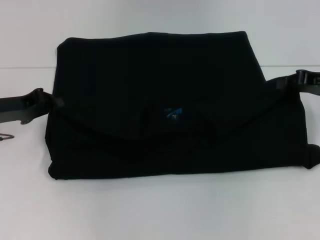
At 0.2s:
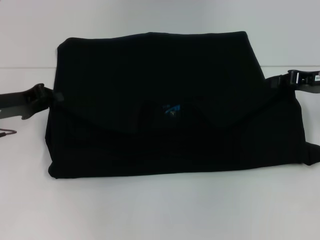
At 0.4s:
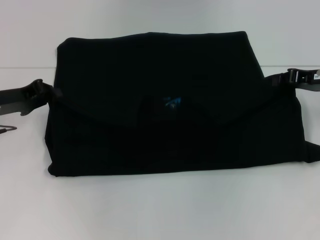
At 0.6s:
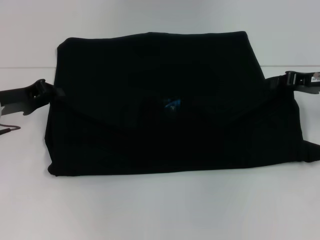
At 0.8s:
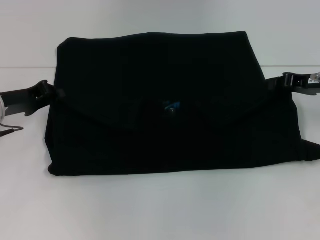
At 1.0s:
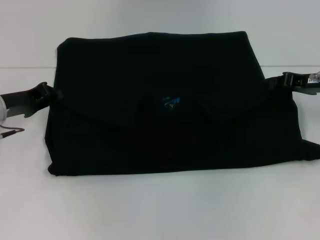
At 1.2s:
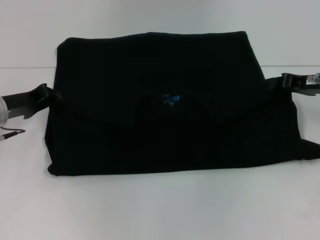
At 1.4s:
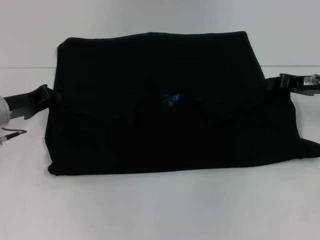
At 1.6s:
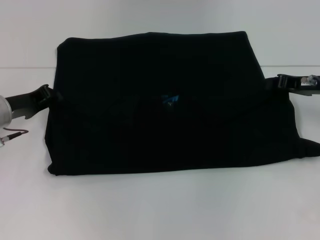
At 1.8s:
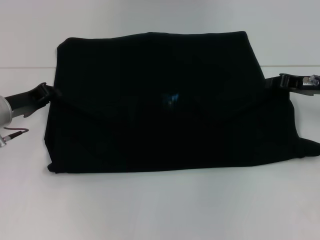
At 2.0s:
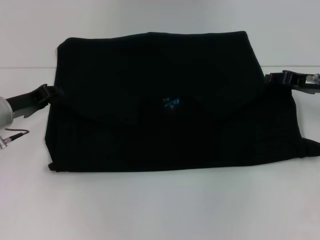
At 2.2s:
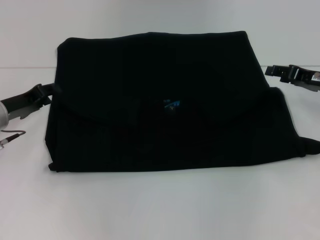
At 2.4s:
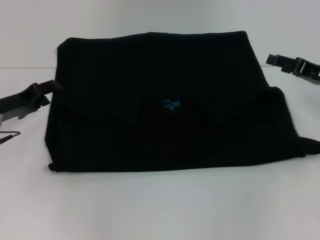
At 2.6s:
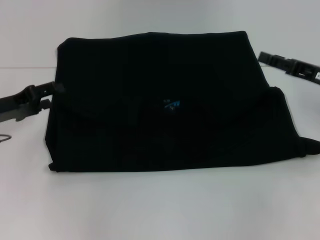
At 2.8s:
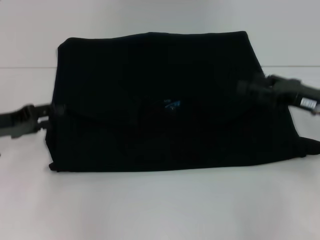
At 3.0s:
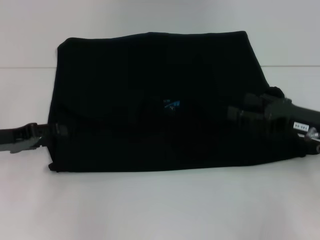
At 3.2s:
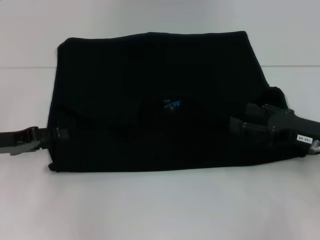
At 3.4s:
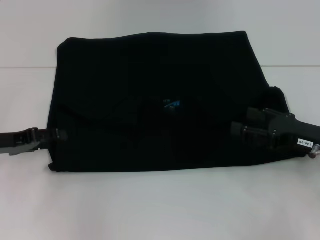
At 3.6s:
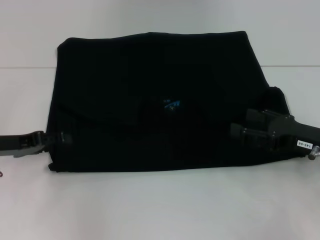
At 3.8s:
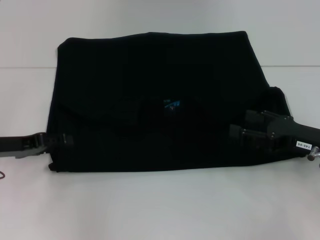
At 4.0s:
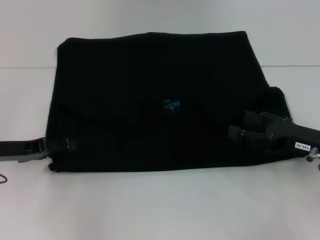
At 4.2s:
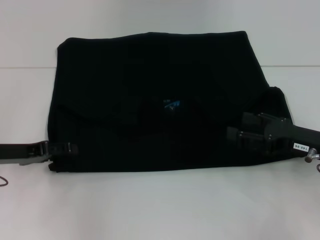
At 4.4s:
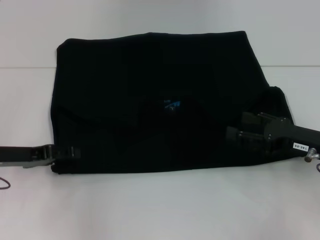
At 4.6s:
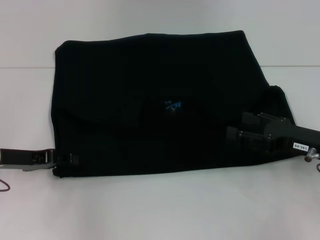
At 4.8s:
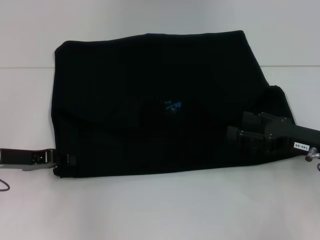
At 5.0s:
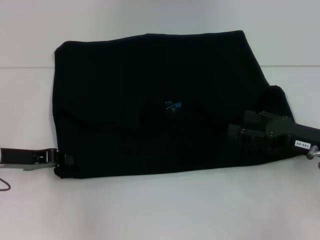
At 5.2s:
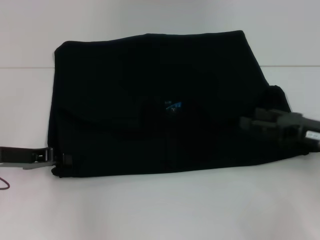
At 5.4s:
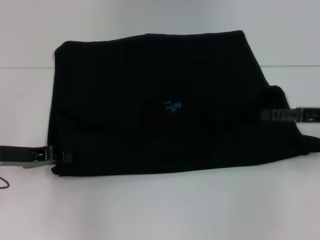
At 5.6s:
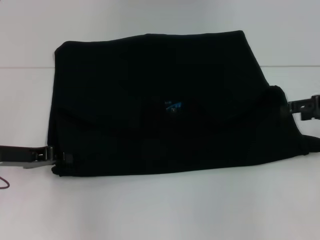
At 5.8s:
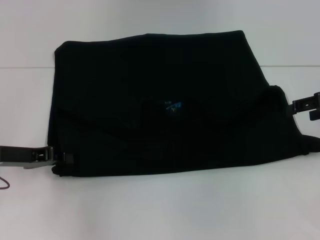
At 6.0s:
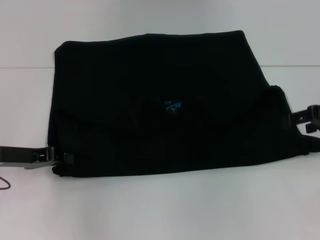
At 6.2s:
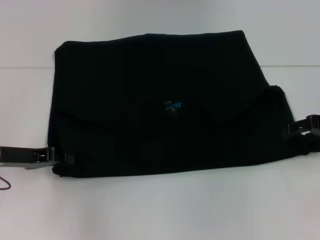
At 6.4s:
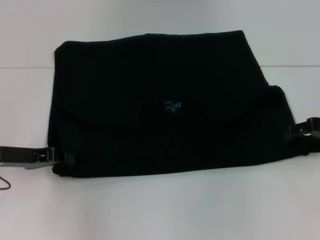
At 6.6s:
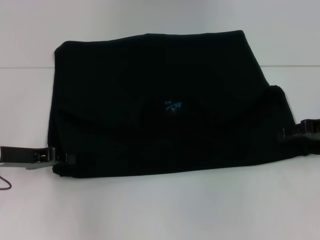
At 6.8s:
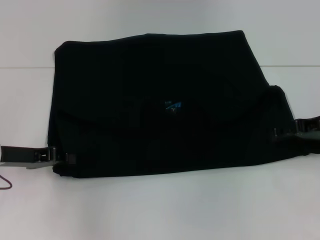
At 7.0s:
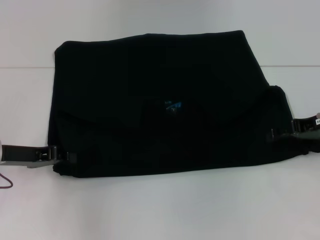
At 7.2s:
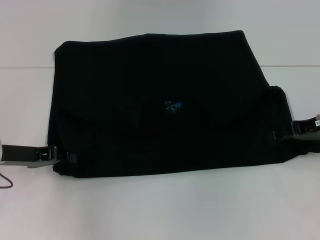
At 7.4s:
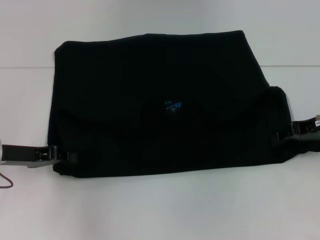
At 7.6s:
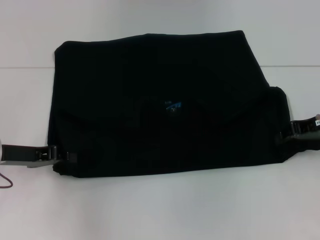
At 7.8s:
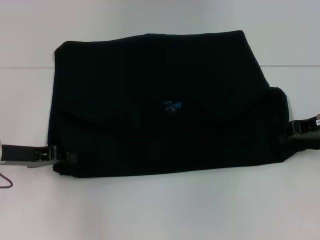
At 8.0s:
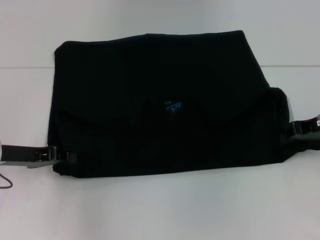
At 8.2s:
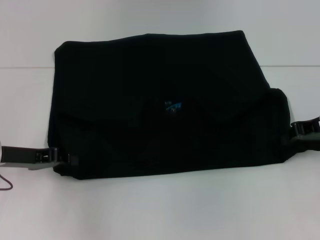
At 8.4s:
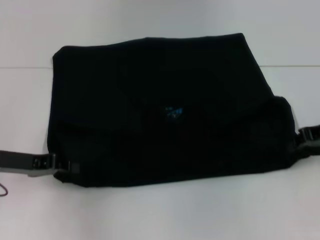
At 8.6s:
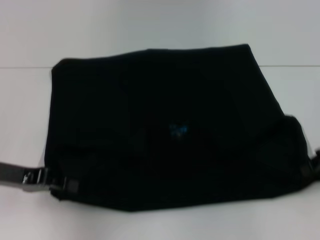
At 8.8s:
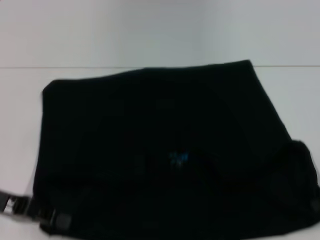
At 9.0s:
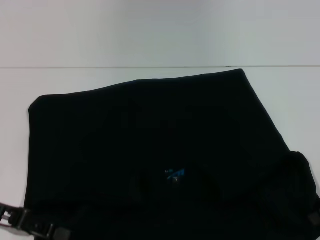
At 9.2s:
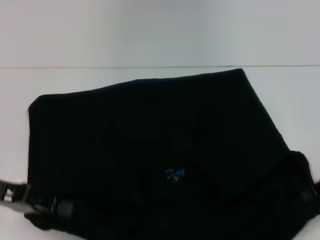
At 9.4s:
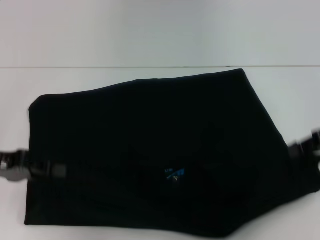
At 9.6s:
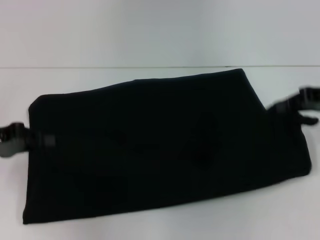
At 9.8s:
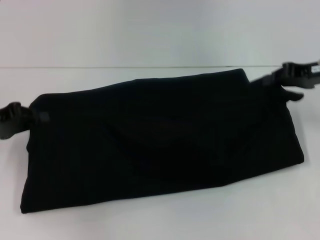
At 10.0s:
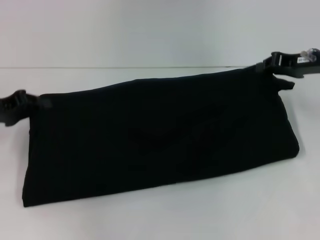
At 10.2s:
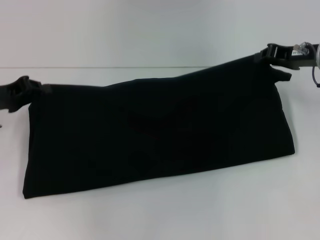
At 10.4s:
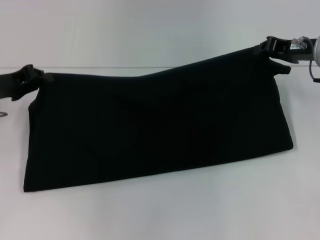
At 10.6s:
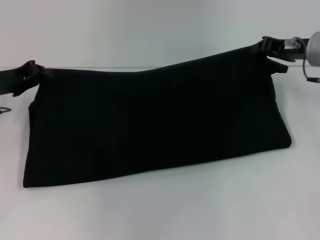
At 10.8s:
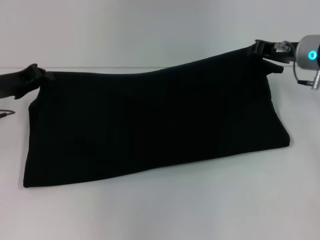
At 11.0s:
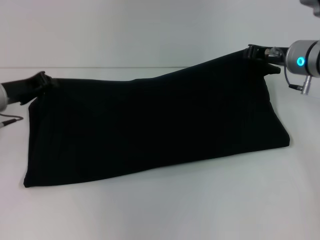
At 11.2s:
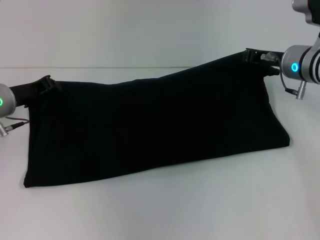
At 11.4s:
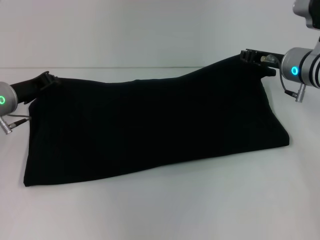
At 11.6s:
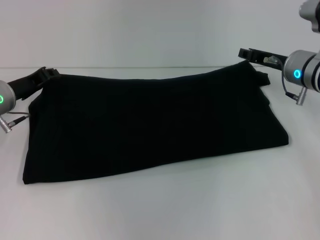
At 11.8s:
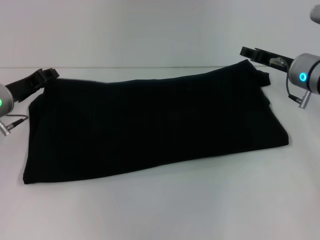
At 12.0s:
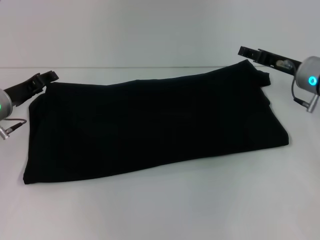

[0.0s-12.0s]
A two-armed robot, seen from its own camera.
Step, 0.0s to 2.4s: Fold the clothes with your left hand.
Step, 0.0s to 2.4s: Fold the clothes with your right hand.
Step, 2.6s to 9.0s: Pull the clothes with your left hand.
Step, 2.6s to 9.0s: Pull the clothes with your right hand.
Step, 9.2s to 12.0s: Fold the clothes with your right hand.
0.0s to 1.6s: The grippers move only a little.
1.6s to 3.0s: The left gripper shifts approximately 5 cm backward, and opens up. The right gripper heads backward, covering approximately 10 cm, and opens its fingers.
3.0s to 4.4s: There are only small adjustments of the grippers.
4.4s to 6.0s: The right gripper goes some 10 cm forward, upward and to the right; the left gripper closes its fingers.
6.0s to 7.6s: The right gripper closes up.
7.6s to 9.0s: Both grippers move backward, approximately 5 cm. The right gripper closes up.
9.0s to 10.4s: The left gripper moves forward, some 10 cm. Meanwhile the right gripper heads forward and to the left, covering some 15 cm.
10.4s to 12.0s: The left gripper ends up about 5 cm from where it was; the right gripper moves downward, roughly 5 cm, and opens its fingers.

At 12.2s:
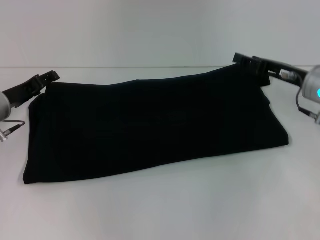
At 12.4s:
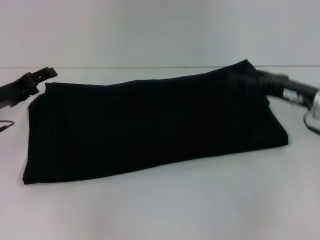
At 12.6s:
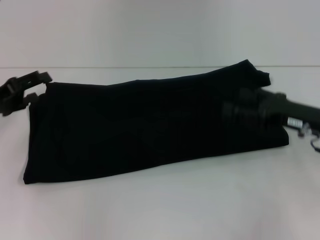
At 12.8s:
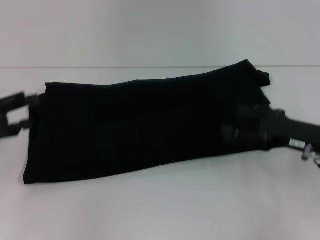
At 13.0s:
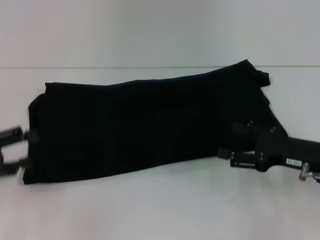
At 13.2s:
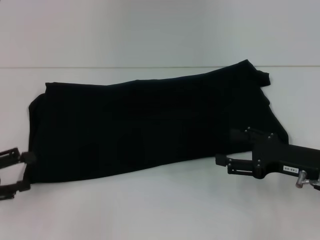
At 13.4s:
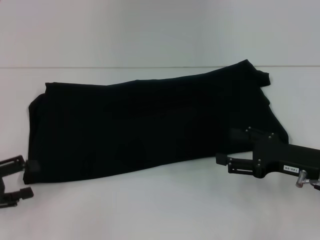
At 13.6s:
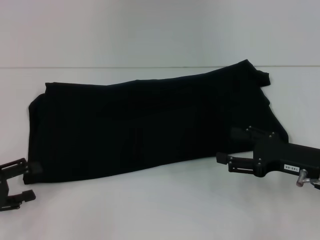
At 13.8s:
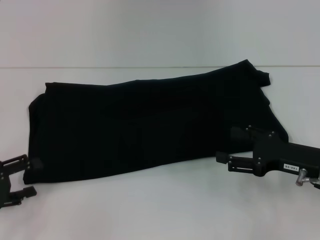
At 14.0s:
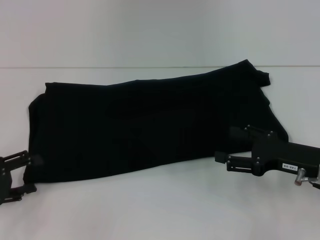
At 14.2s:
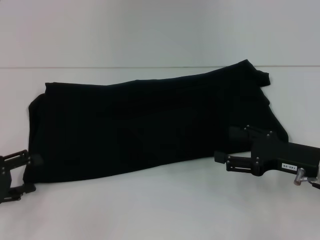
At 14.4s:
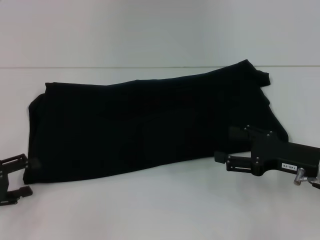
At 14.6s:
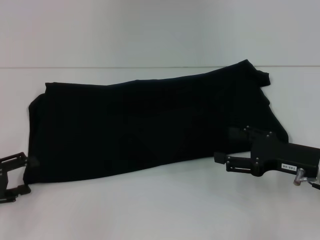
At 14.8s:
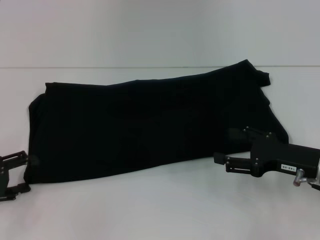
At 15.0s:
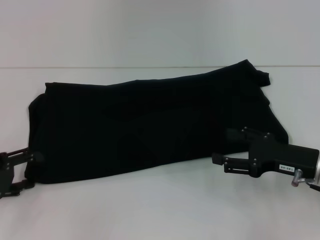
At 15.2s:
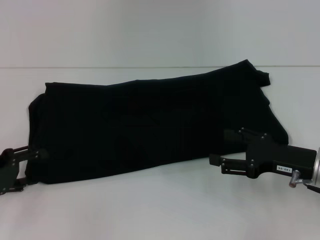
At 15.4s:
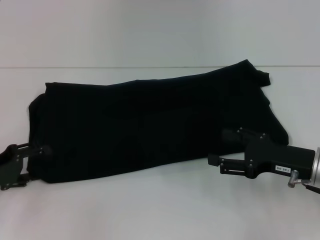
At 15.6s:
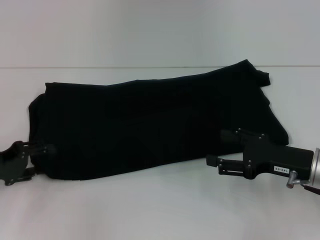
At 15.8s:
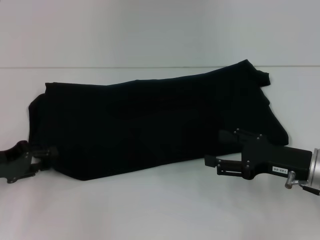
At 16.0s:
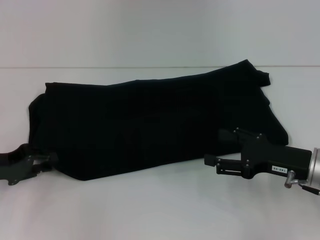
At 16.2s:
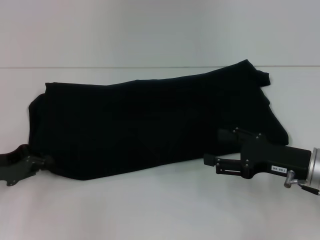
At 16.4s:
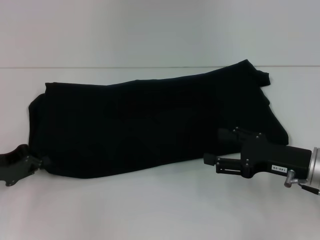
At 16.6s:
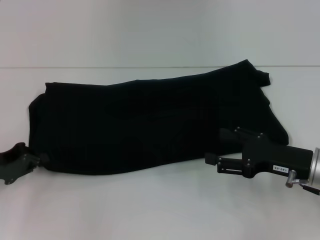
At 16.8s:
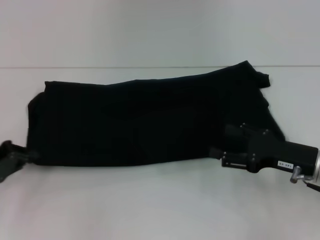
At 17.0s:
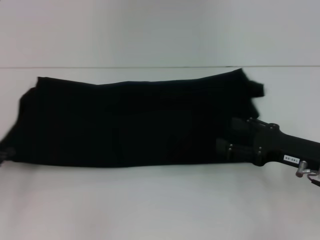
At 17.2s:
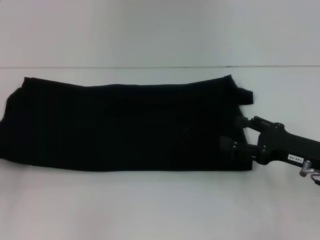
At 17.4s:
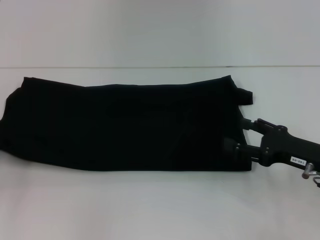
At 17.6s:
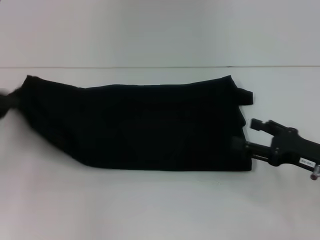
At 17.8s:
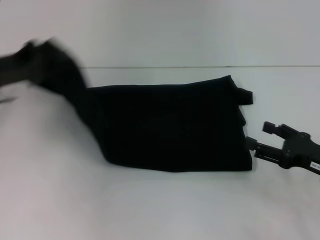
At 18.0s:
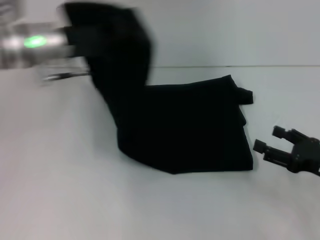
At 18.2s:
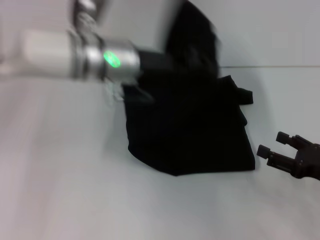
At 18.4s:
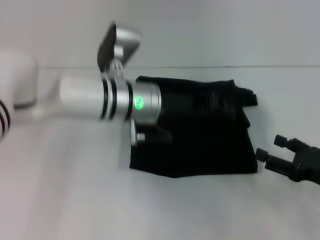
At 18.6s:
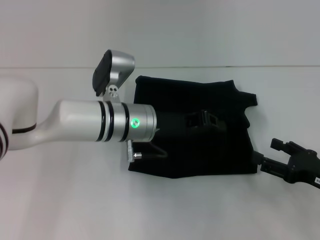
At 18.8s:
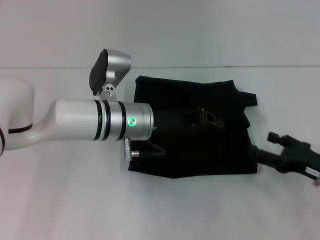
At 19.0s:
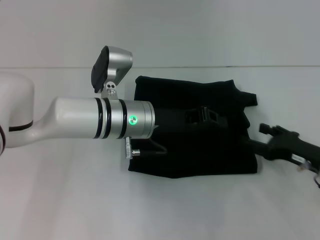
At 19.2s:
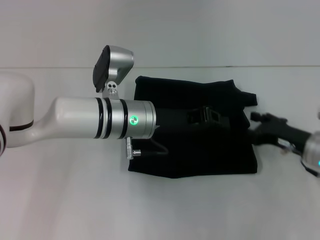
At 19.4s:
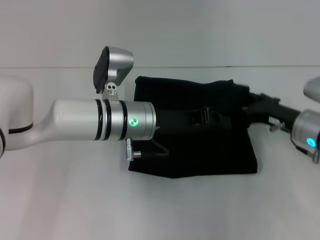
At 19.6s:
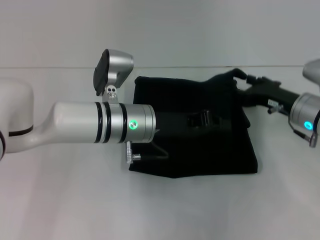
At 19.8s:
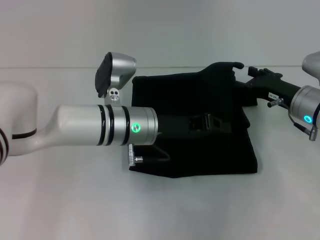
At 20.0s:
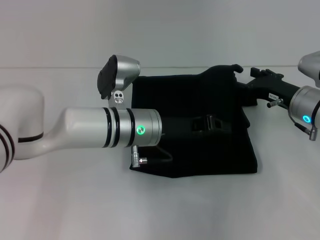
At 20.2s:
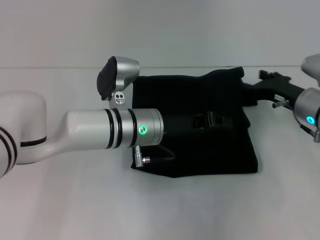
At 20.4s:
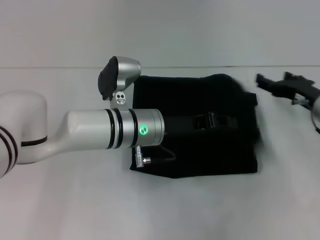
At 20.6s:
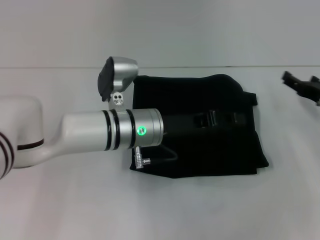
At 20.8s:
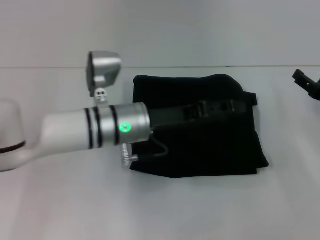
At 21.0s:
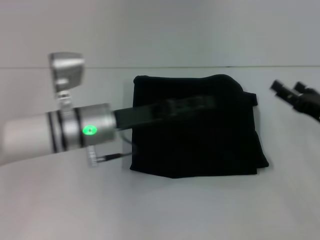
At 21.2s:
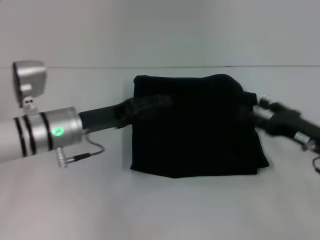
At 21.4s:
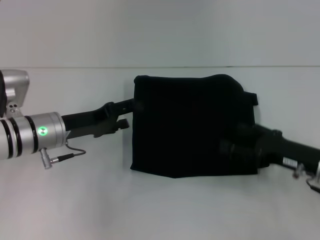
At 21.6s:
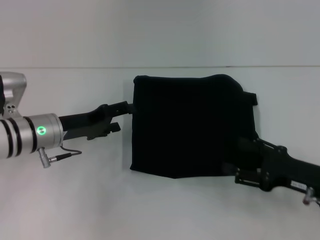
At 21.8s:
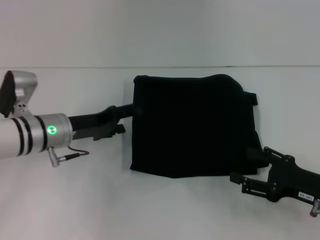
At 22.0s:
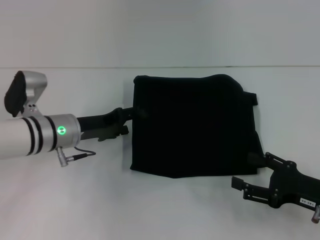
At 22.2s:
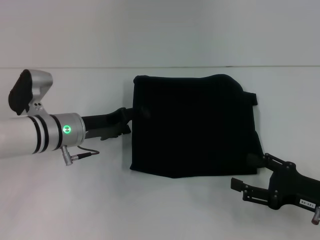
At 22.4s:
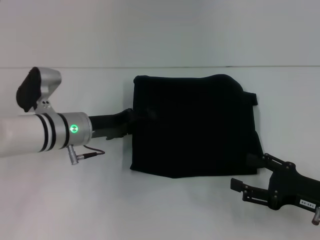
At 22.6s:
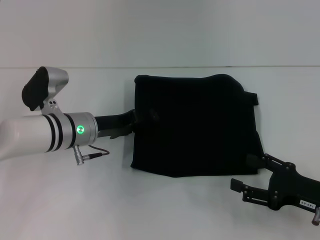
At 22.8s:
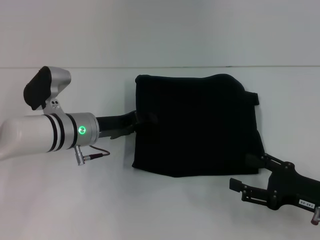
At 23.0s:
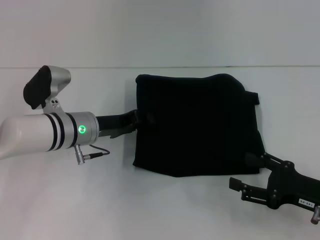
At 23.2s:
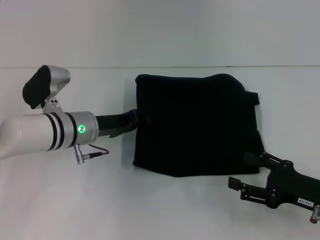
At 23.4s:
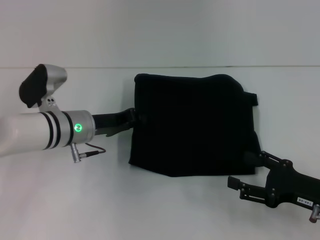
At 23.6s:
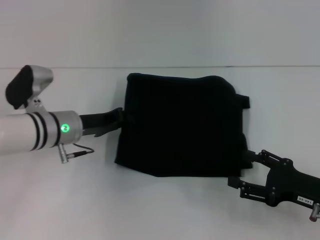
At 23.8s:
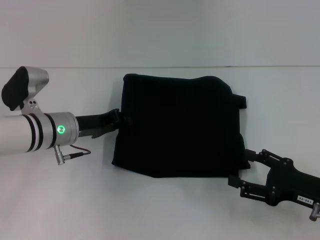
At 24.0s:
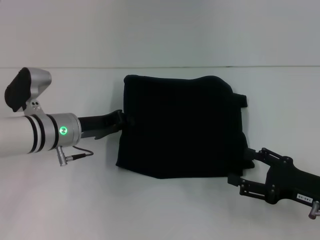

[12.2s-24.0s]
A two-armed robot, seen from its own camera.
Step, 12.2s to 18.8s: Fold the clothes with your left hand.
12.2s to 13.6s: The right gripper goes some 10 cm backward; the left gripper is displaced backward and to the left by roughly 15 cm.
13.6s to 15.2s: There are only small adjustments of the grippers.
15.2s to 16.6s: The left gripper closes up.
16.6s to 18.2s: The right gripper travels to the right by some 5 cm, while the left gripper is displaced to the right, upward and forward by approximately 30 cm.
18.2s to 19.6s: The left gripper moves downward, approximately 10 cm. Meanwhile the right gripper heads forward and to the left, covering approximately 15 cm.
19.6s to 21.0s: The right gripper shifts about 10 cm to the right and backward; the left gripper travels to the left by approximately 5 cm, and opens.
21.0s to 22.6s: The right gripper heads backward, covering approximately 10 cm; the left gripper goes to the left and returns, approximately 10 cm each way.
22.6s to 24.0s: The left gripper closes up.
